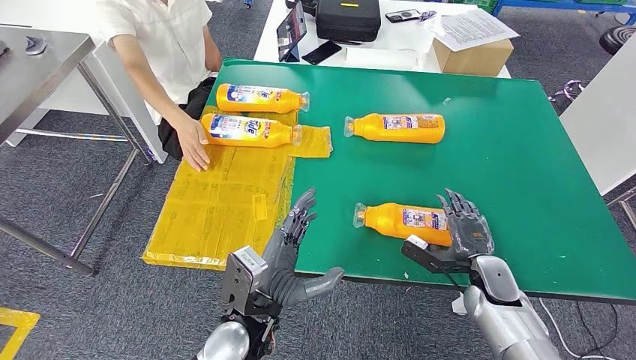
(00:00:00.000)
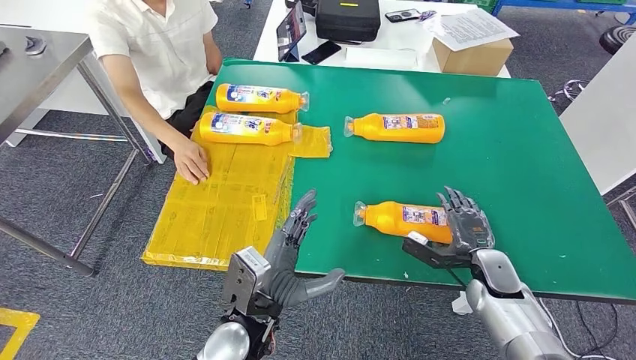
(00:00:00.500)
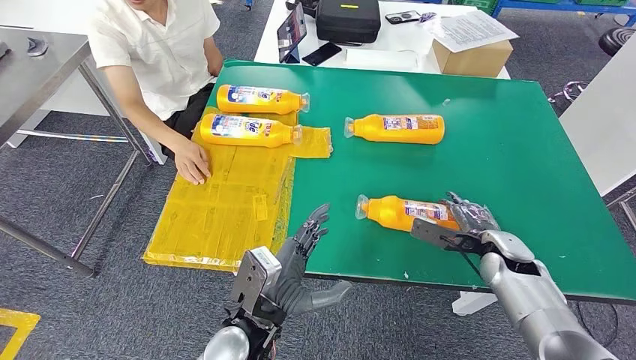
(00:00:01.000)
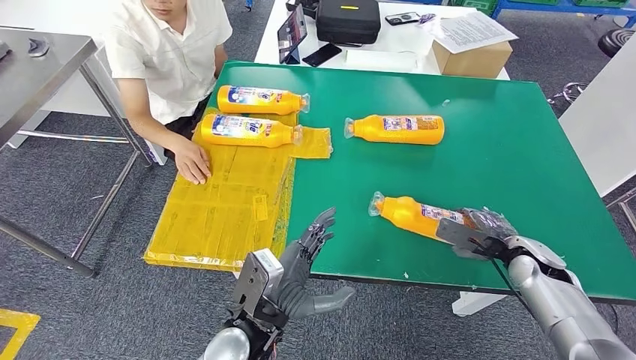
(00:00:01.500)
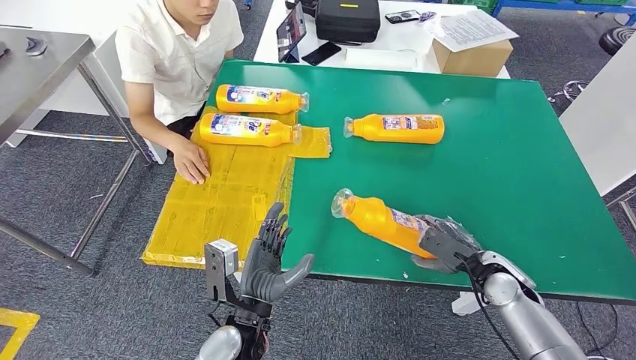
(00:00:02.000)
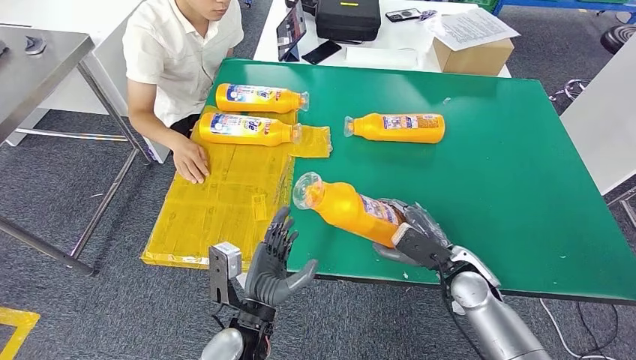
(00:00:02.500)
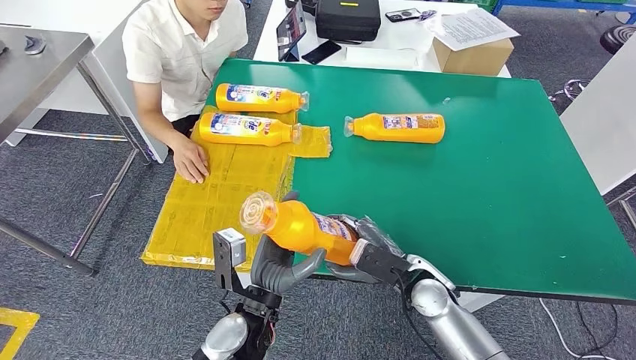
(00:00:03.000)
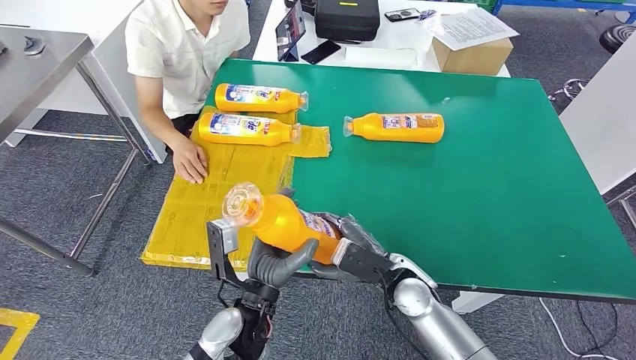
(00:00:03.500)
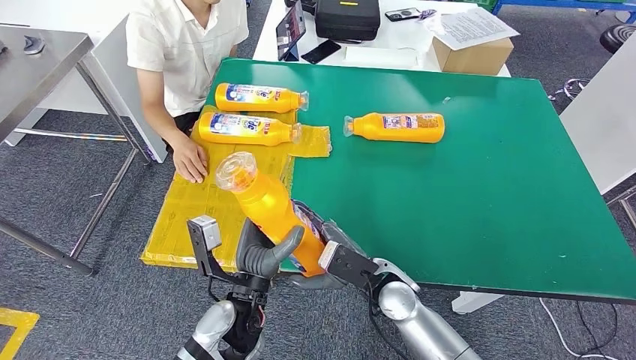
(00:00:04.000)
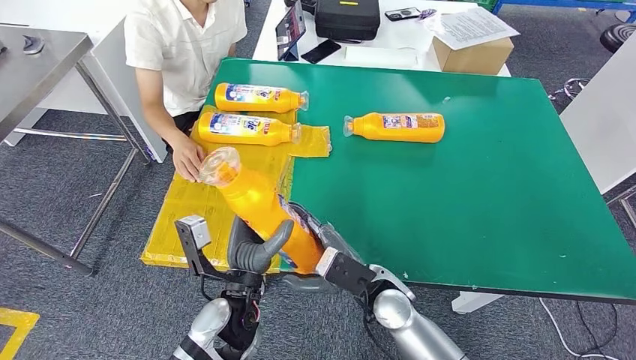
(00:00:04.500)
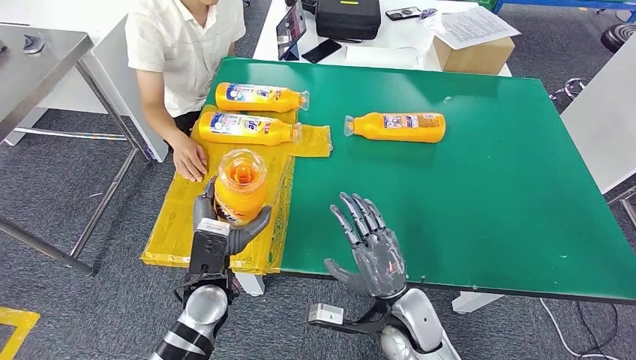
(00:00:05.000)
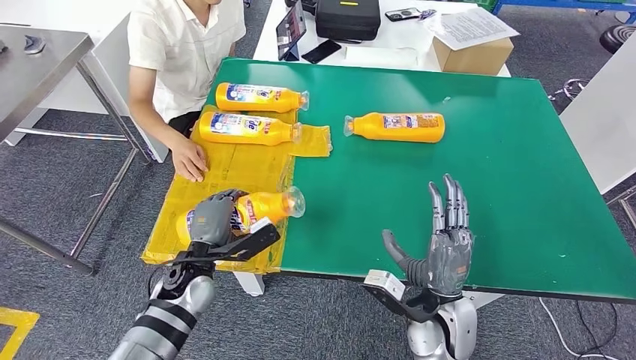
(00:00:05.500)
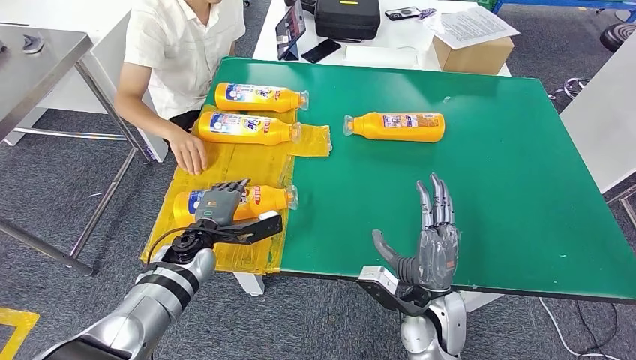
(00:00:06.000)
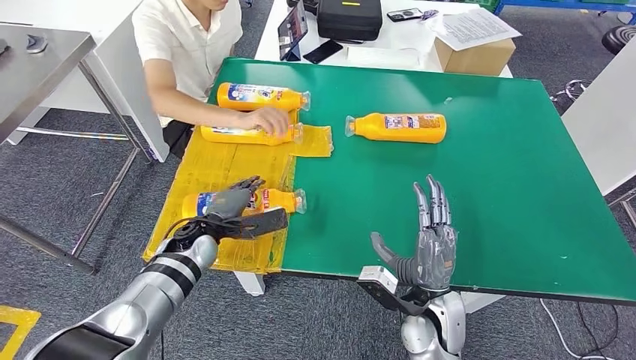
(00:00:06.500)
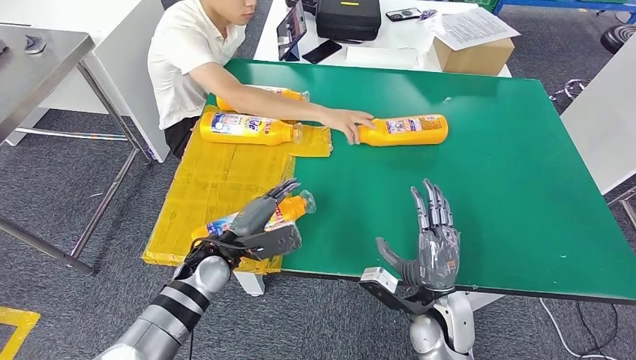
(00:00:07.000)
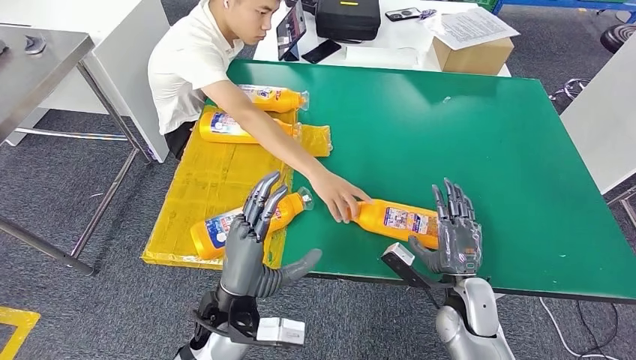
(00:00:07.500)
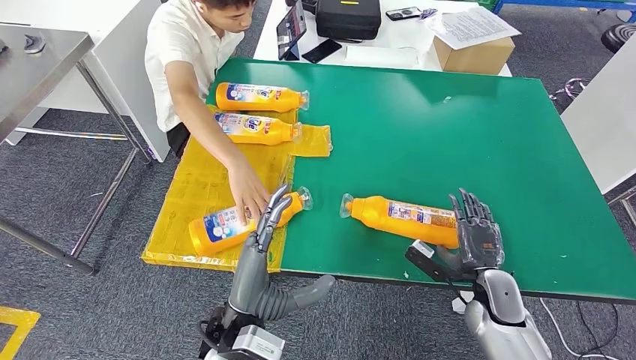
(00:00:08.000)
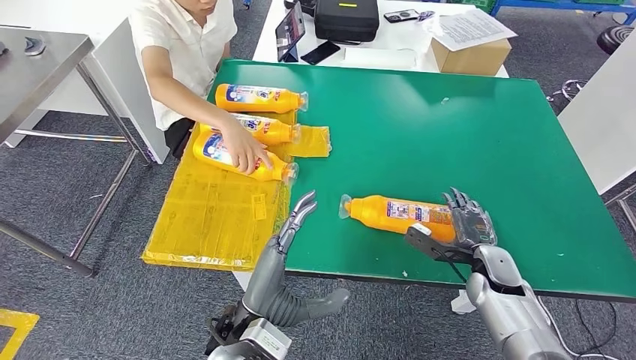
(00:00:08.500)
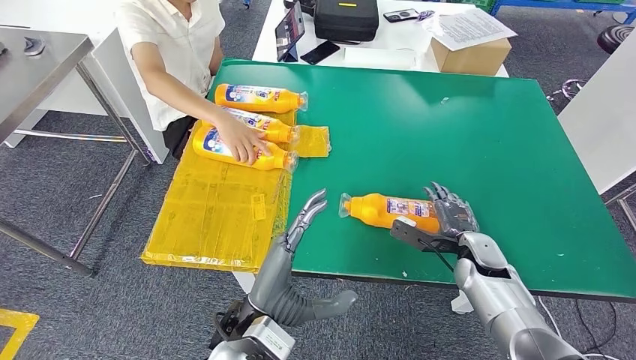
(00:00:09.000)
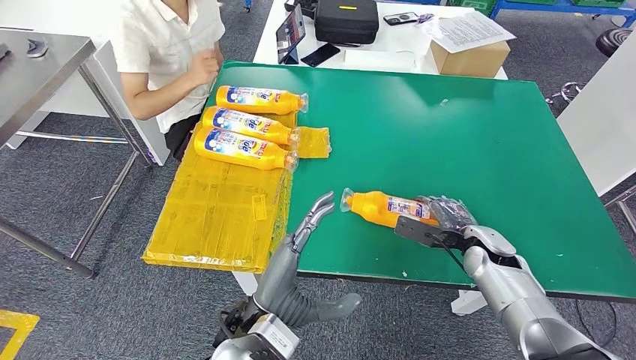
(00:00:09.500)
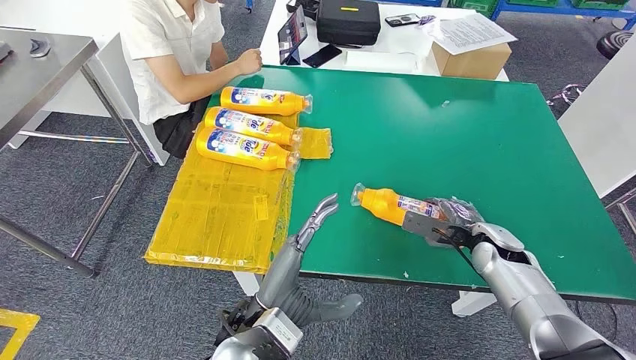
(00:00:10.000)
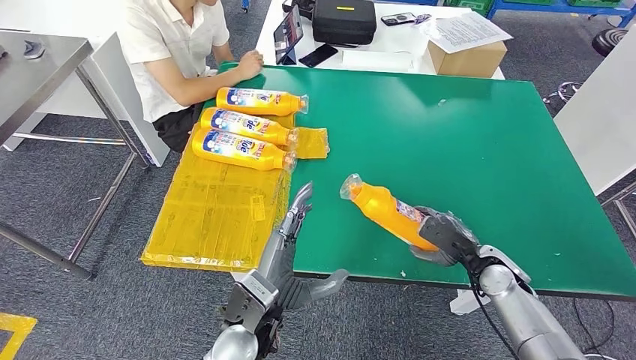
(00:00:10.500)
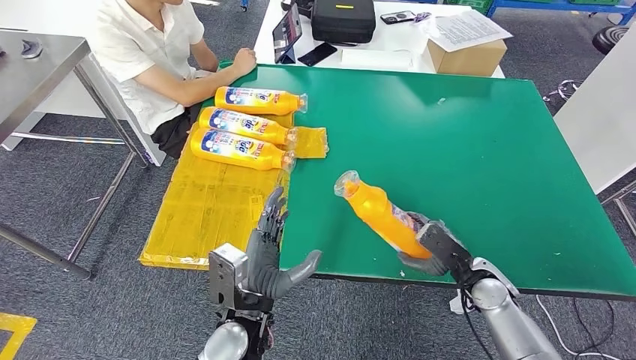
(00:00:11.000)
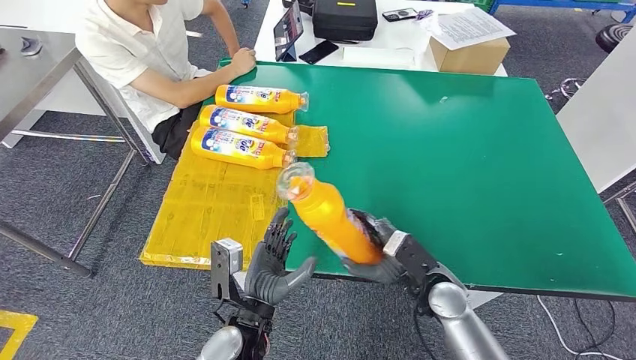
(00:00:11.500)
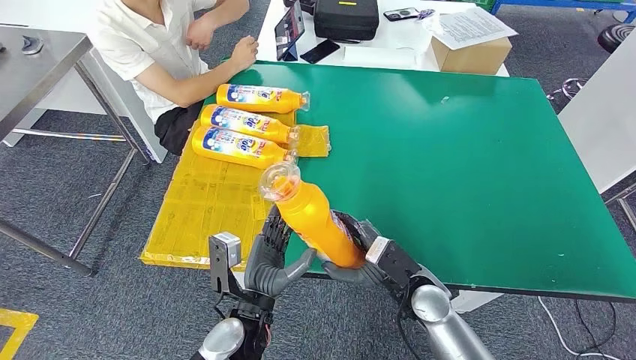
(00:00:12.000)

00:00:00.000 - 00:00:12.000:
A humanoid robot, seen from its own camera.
Step, 00:00:00.000 - 00:00:03.000: Pick up the fast-moving consumer goods bottle from the table.
Step, 00:00:03.500 - 00:00:06.500: Flip the fast-moving consumer goods bottle to the front side.
Step, 00:00:07.500 - 00:00:11.000: Pick up the fast-moving consumer goods bottle from the table.
00:00:02.000 - 00:00:04.000: The right hand shifts about 25 cm to the left.
00:00:04.000 - 00:00:06.000: The left hand heads forward and to the left, covering approximately 15 cm; the right hand is displaced to the right by some 5 cm.

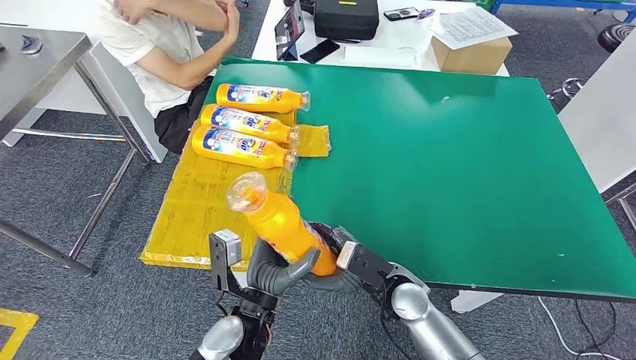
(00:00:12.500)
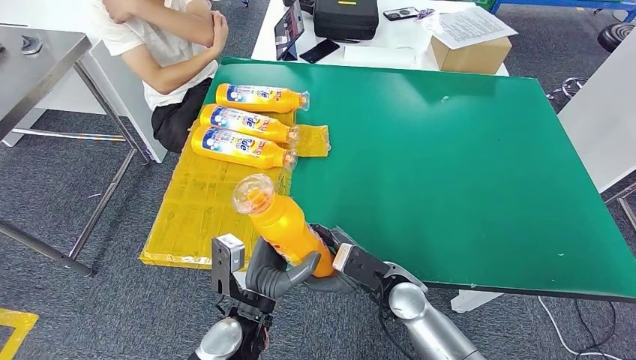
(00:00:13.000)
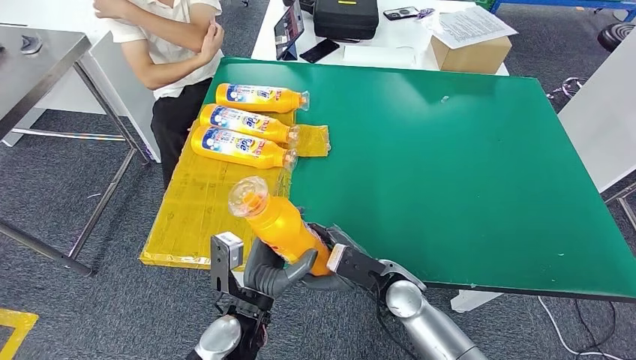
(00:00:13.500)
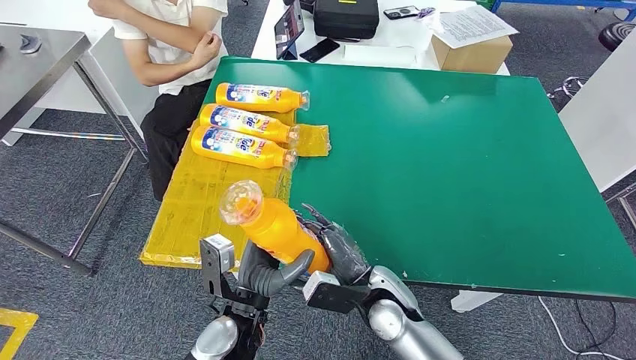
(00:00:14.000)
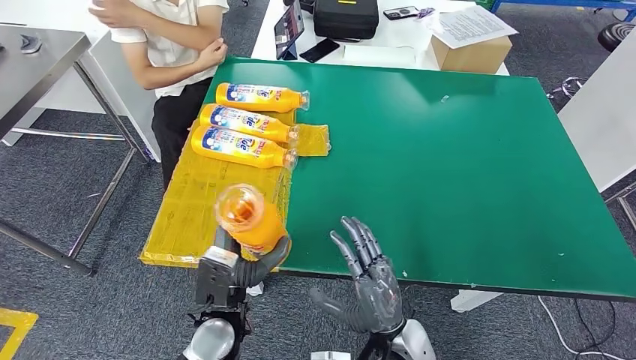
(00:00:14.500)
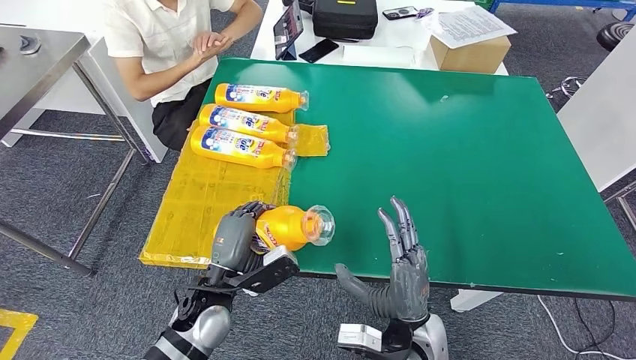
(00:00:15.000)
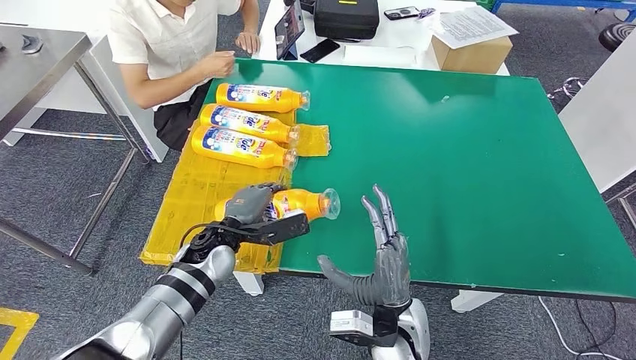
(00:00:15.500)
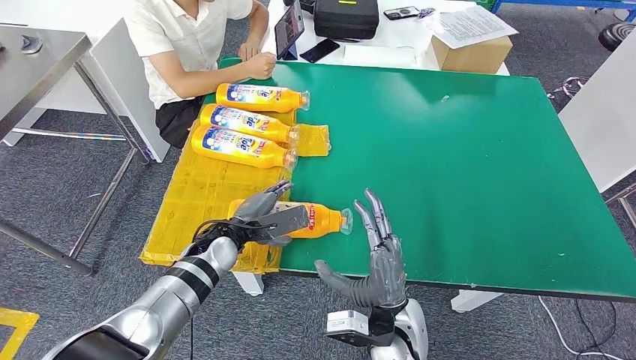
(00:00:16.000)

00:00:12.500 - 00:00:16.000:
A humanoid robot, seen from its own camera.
Step, 00:00:12.500 - 00:00:16.000: Flip the fast-moving consumer goods bottle to the front side.
00:00:12.500 - 00:00:14.500: The right hand goes about 10 cm backward.
00:00:14.500 - 00:00:16.000: The left hand shifts some 15 cm forward.
